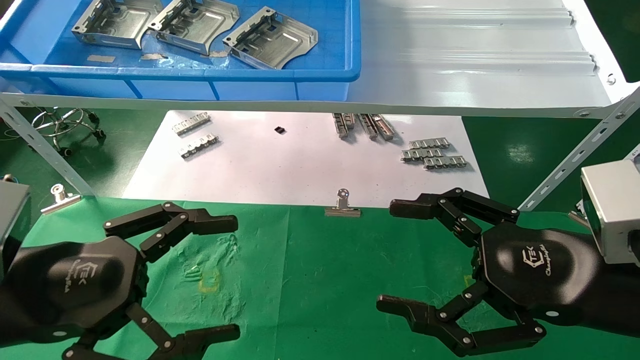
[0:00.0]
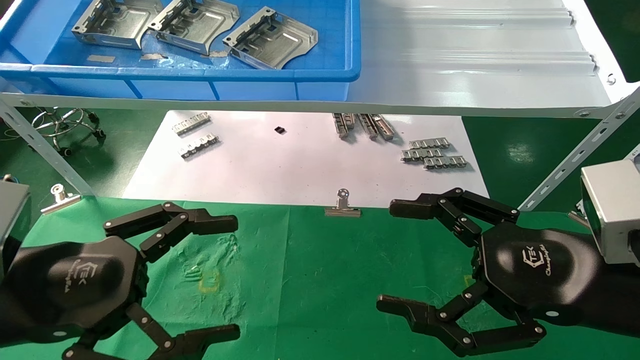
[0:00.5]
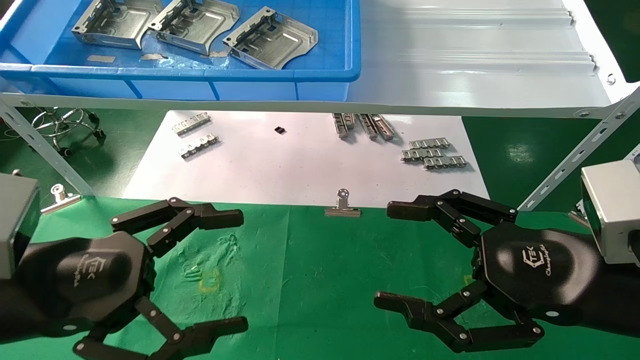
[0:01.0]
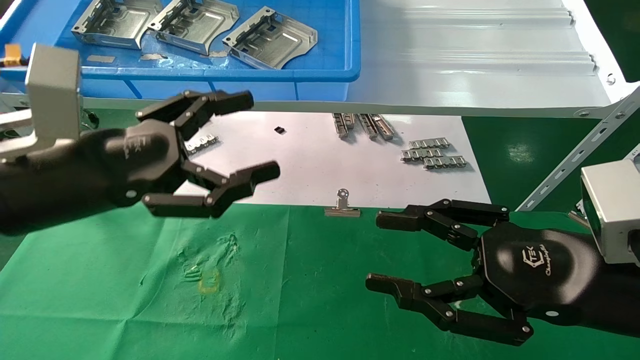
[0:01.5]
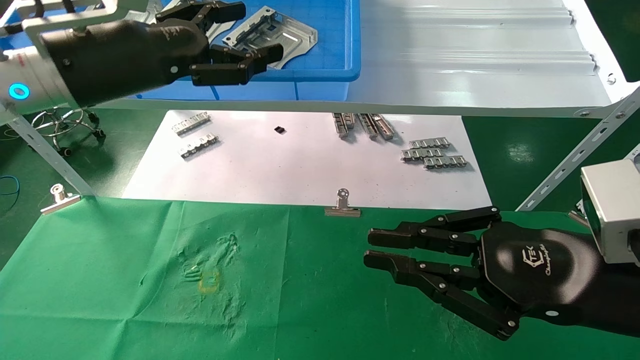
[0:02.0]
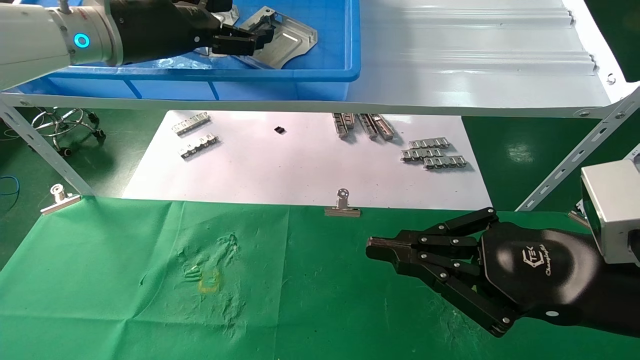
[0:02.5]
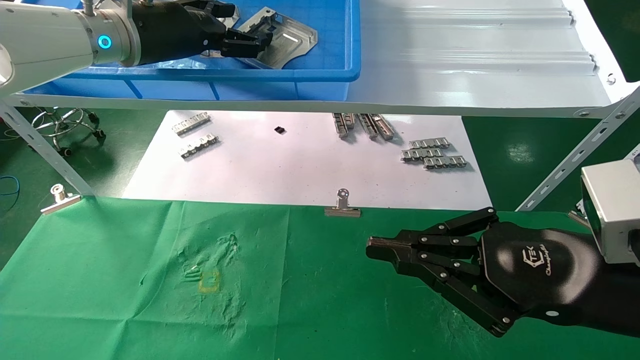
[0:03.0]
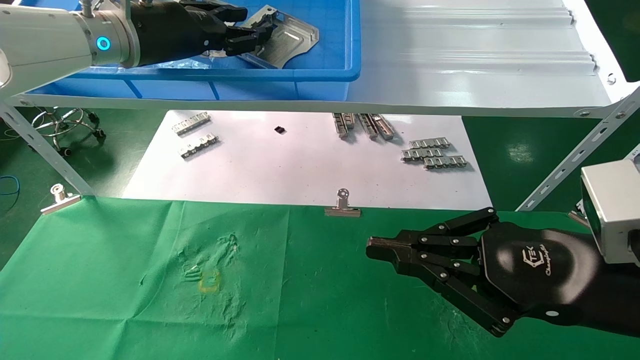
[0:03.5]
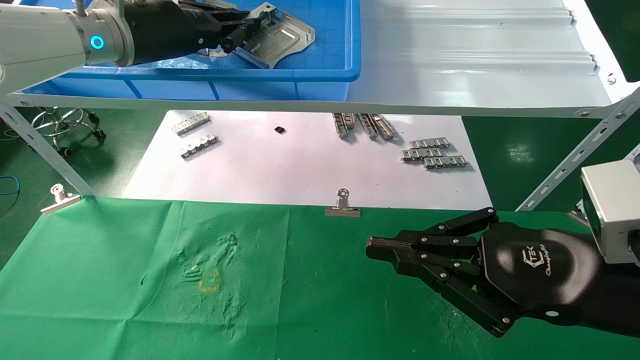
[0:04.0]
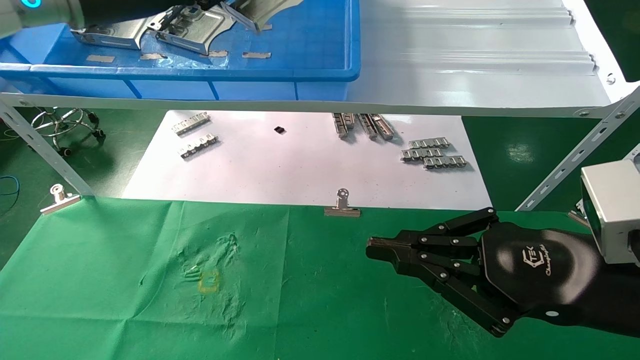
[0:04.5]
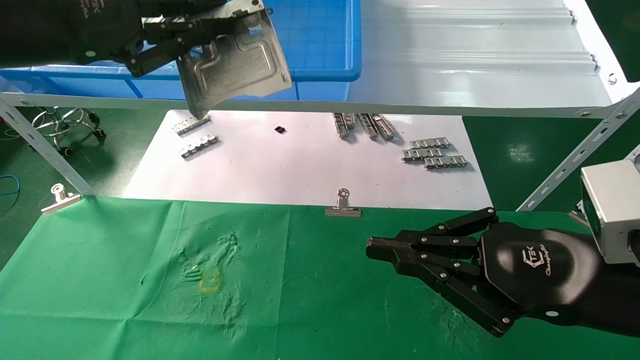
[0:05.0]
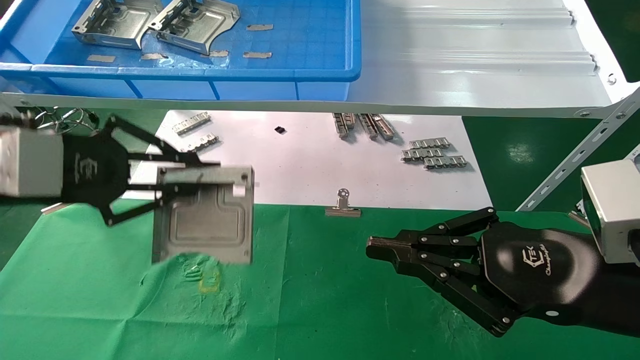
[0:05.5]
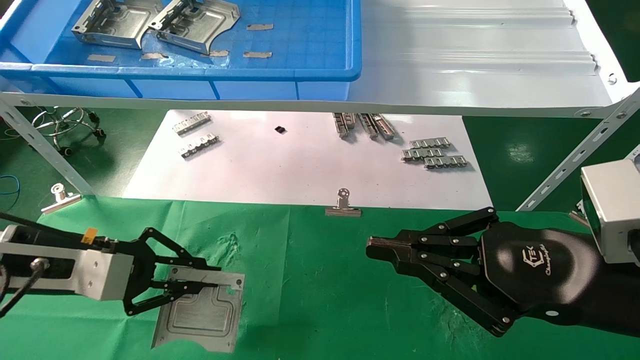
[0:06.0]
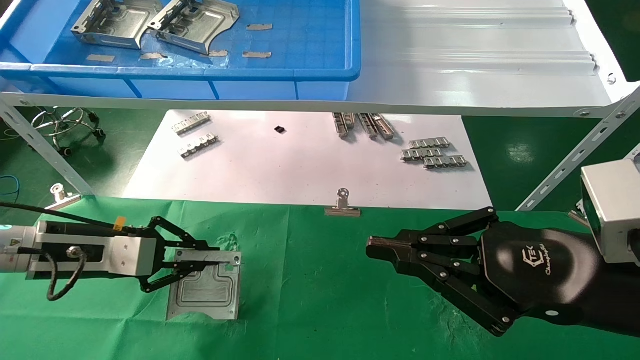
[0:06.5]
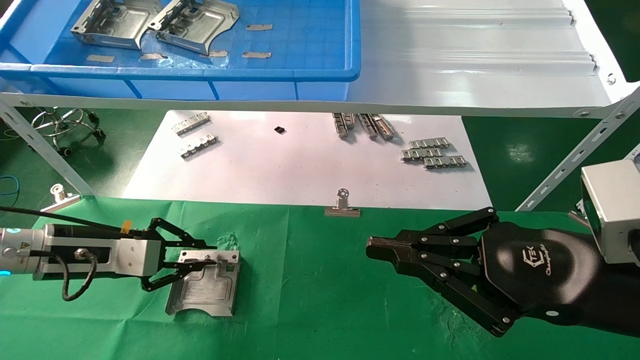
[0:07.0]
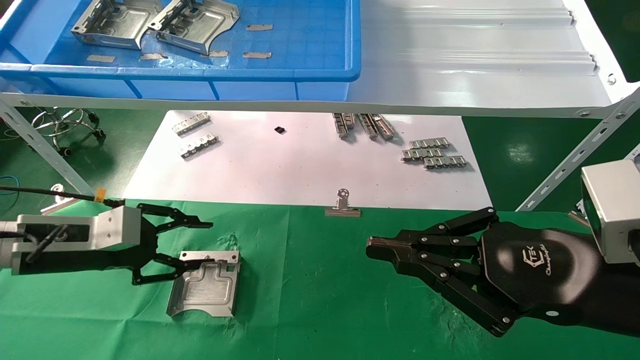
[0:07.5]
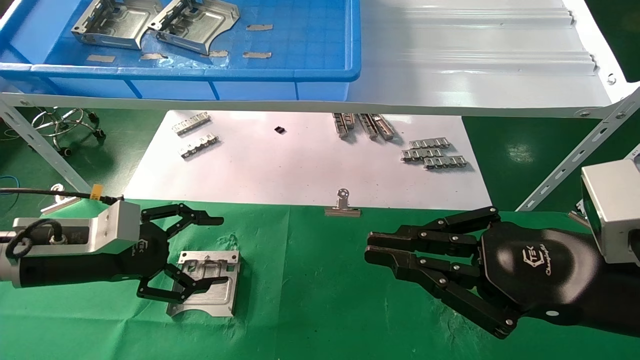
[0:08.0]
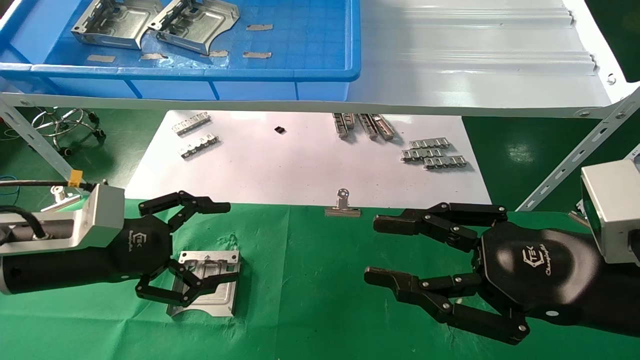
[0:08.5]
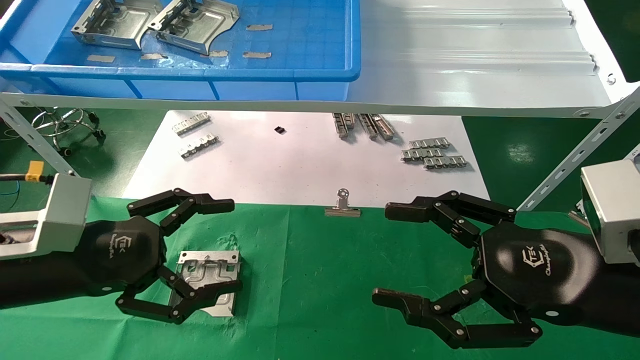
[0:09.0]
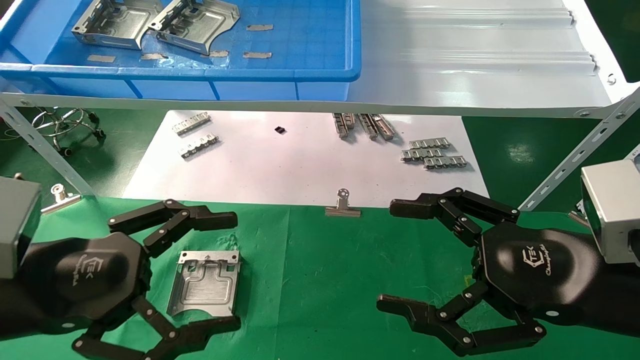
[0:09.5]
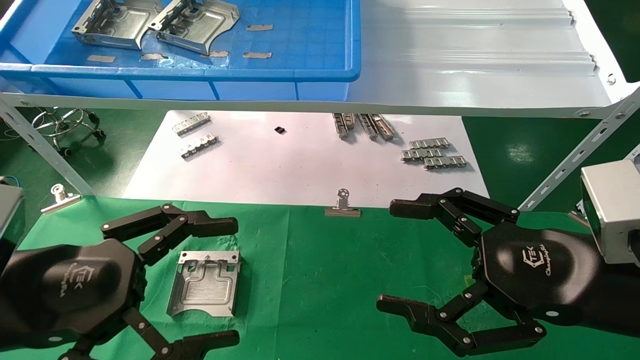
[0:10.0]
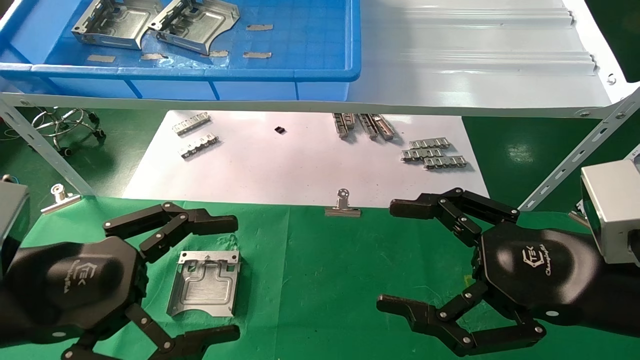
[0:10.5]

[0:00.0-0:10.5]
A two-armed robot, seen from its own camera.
Task of the whole recording: use the mechanical arm to pick up the parts and place them on the table.
Step, 0:01.5 to 0:04.0: Pick up the hard drive bracket from the feeding area.
Step, 0:04.5 to 0:07.0: Place the hard drive bracket into the box.
0:00.0 to 0:02.0: The left gripper is displaced upward and forward by some 20 cm. Meanwhile the right gripper closes its fingers.
0:02.0 to 0:04.0: The left gripper heads forward, covering approximately 10 cm, and closes its fingers.
0:04.0 to 0:06.5: The left gripper moves downward and to the left, about 30 cm.
0:06.5 to 0:08.5: The left gripper goes some 5 cm backward, and opens.
0:08.5 to 0:10.5: The left gripper is displaced backward by approximately 10 cm. The right gripper opens up.
